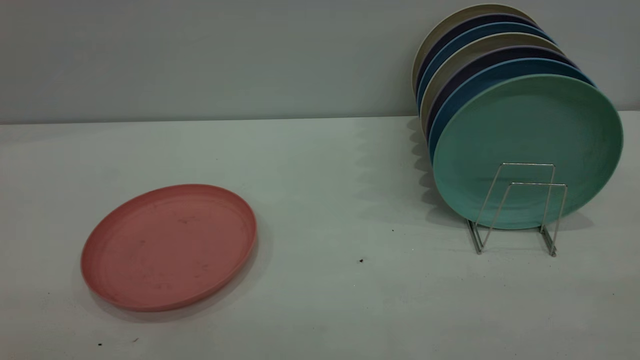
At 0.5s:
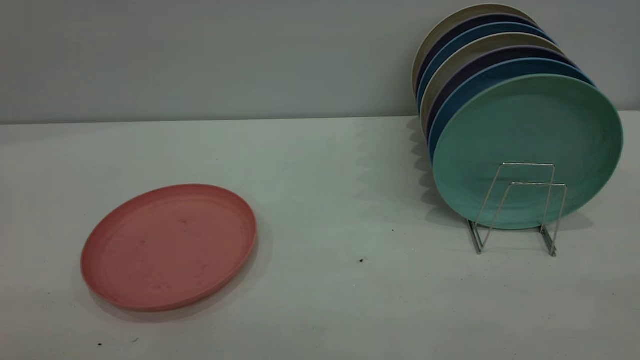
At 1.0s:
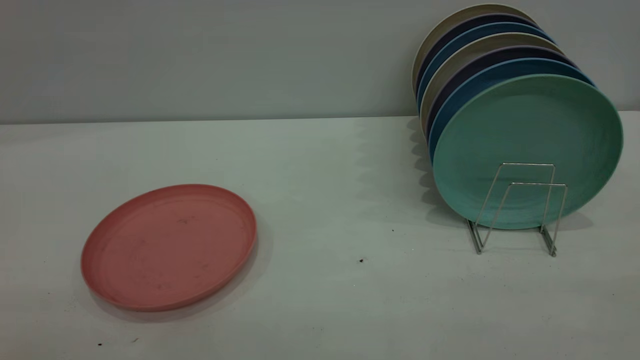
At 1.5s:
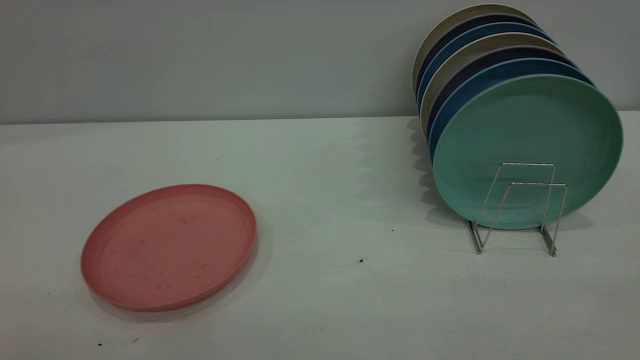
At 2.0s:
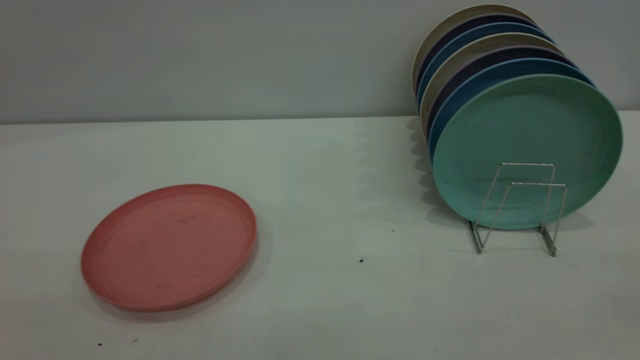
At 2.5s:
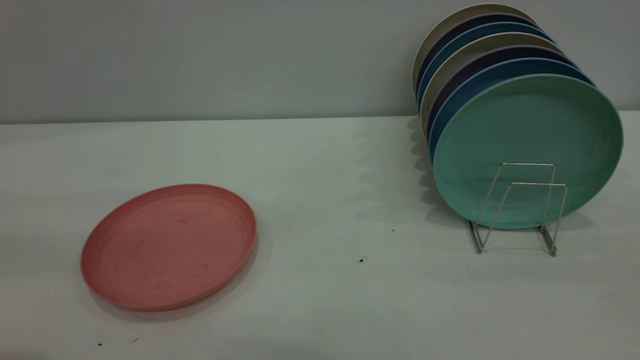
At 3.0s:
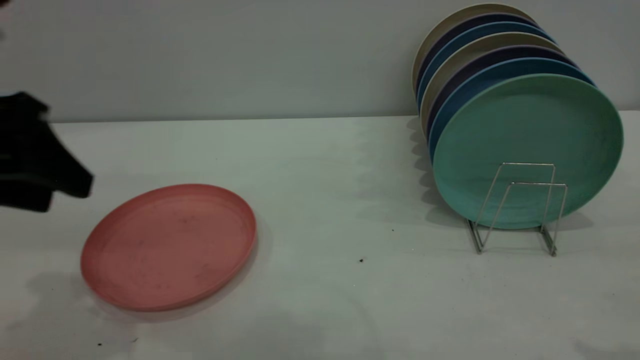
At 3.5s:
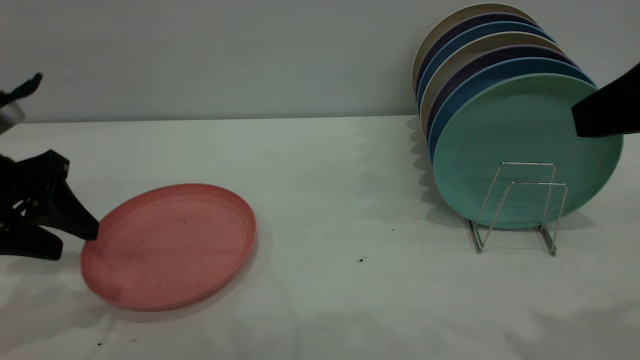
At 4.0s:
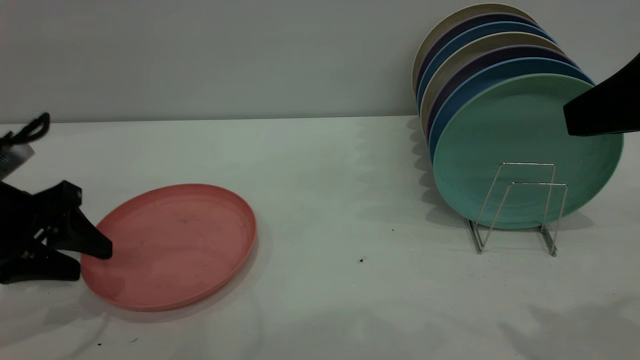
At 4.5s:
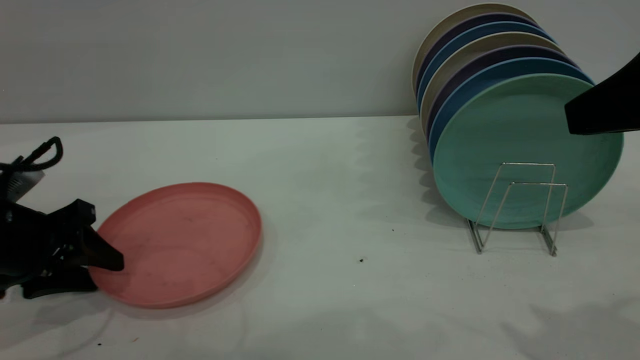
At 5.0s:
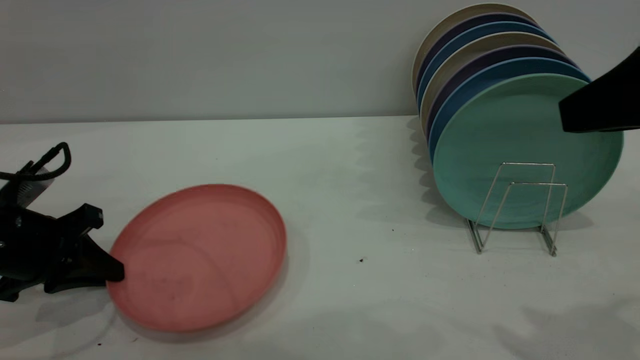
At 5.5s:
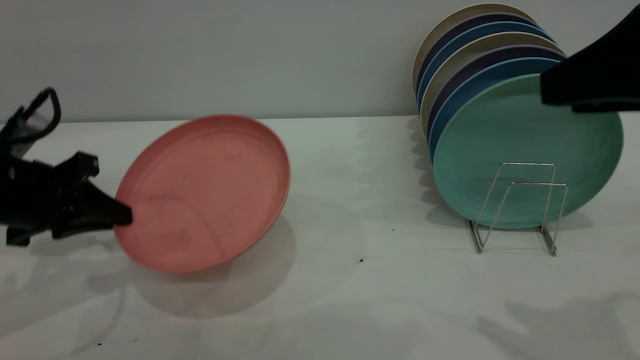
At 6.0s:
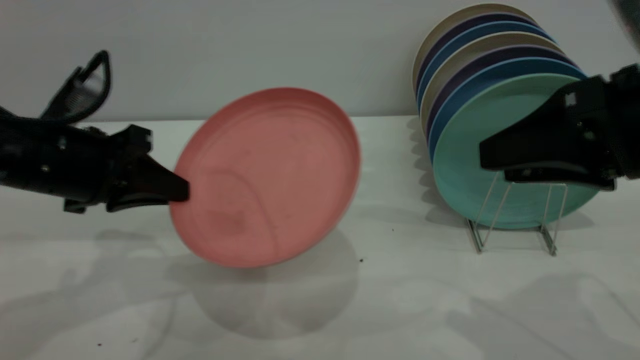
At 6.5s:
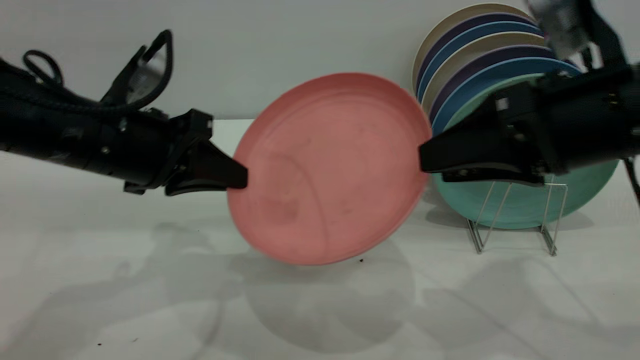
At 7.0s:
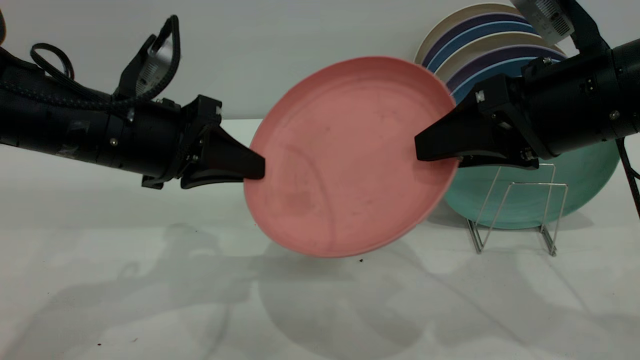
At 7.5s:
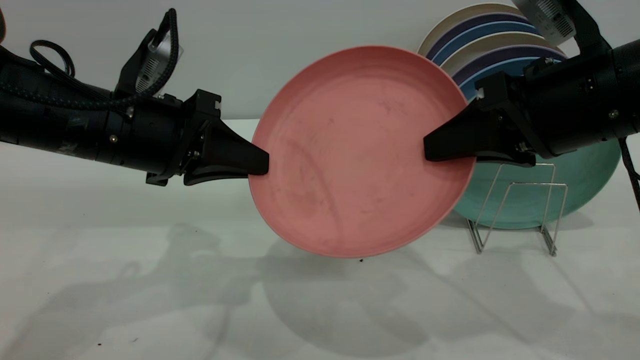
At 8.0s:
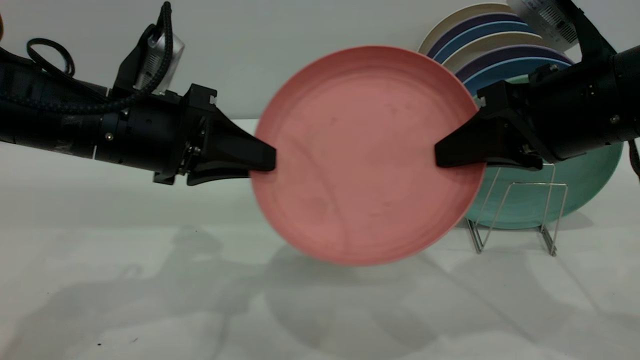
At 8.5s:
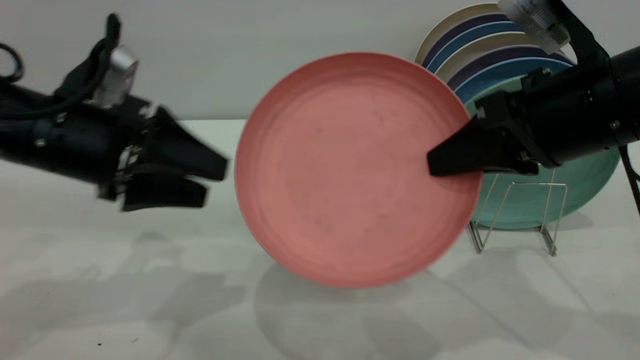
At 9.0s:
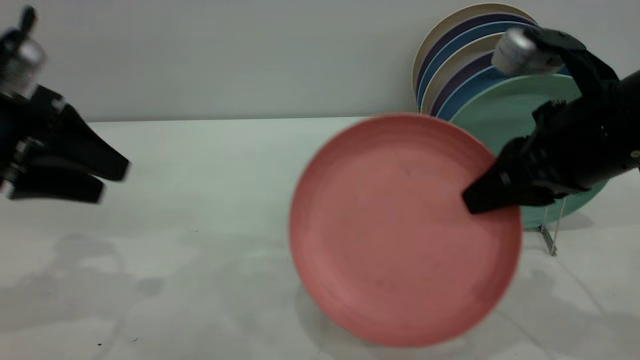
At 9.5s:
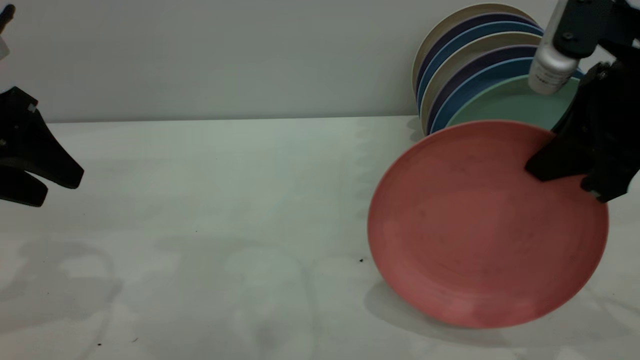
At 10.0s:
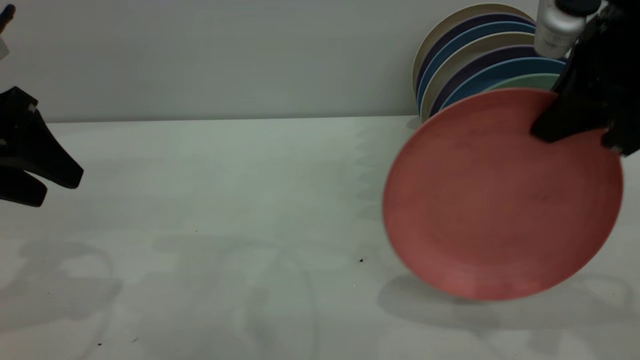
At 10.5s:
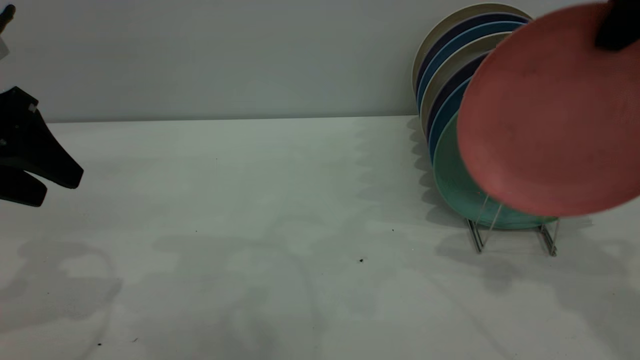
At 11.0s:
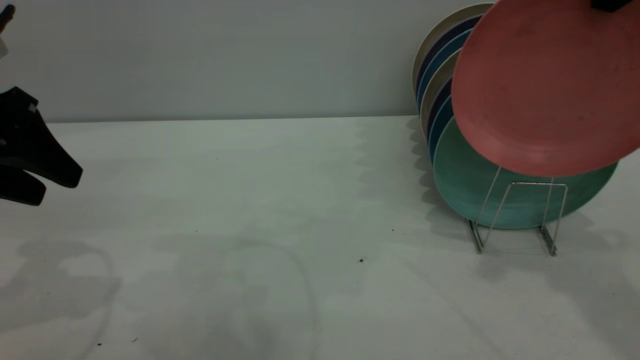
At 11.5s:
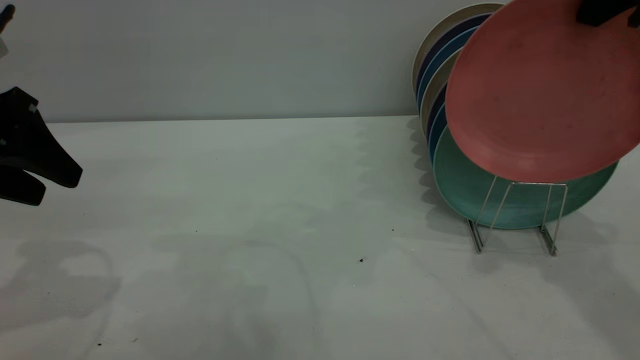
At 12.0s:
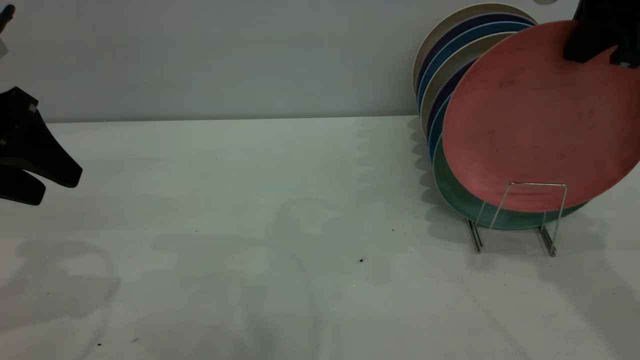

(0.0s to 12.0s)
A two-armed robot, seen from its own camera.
Task of the whole recording: the left gripper grasp the pink plate, the left gripper pass the pink plate to the right gripper, and the right gripper place the pink plate on the plate rack.
Step, 0.0s - 5.0s: Pick up the plate with the left gripper.
Step, 5.5s - 8.5s: Pass the plate from the left gripper to the right gripper.
2.0s - 4.0s: The left gripper shifts approximately 35 cm downward and forward. The right gripper moves forward, some 20 cm.
4.0s - 6.0s: The right gripper travels downward by roughly 5 cm. The left gripper shifts approximately 10 cm to the right, and closes its fingers.
6.0s - 8.0s: The left gripper heads to the right, covering some 5 cm. Meanwhile the right gripper ends up approximately 5 cm from where it was, and closes its fingers.
8.0s - 10.0s: The left gripper goes approximately 15 cm to the left, and opens. Meanwhile the right gripper travels upward by approximately 5 cm.
10.0s - 12.0s: The right gripper is displaced forward by about 5 cm.

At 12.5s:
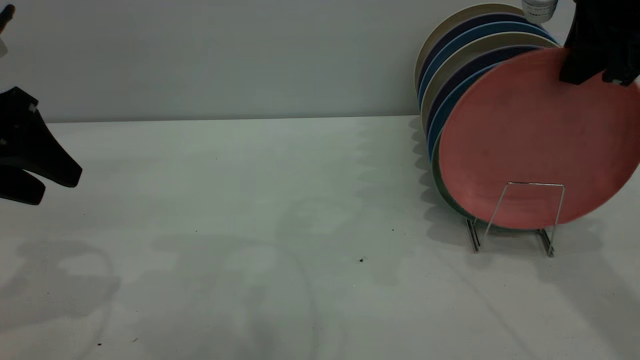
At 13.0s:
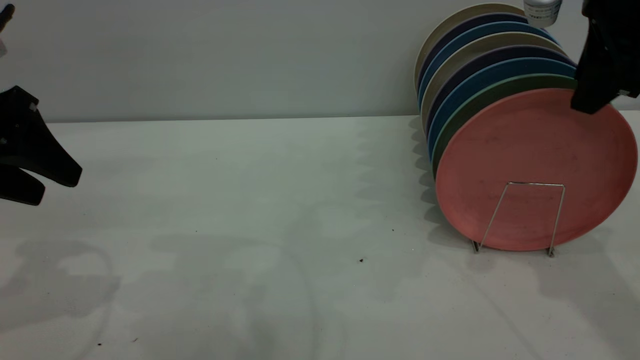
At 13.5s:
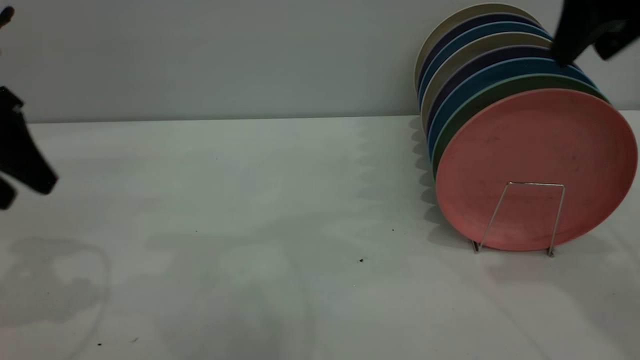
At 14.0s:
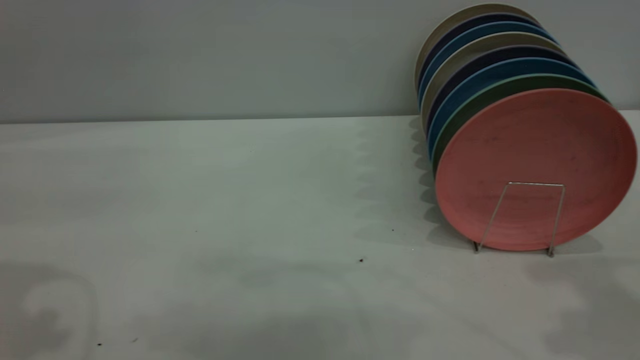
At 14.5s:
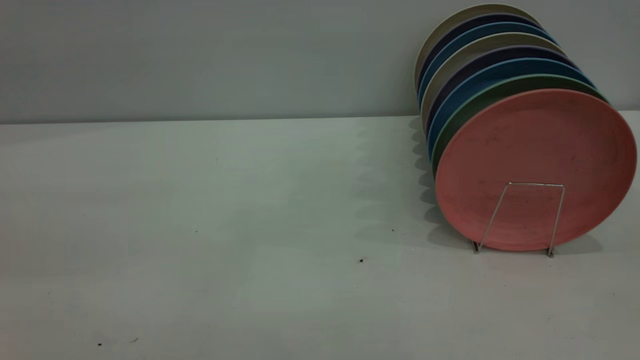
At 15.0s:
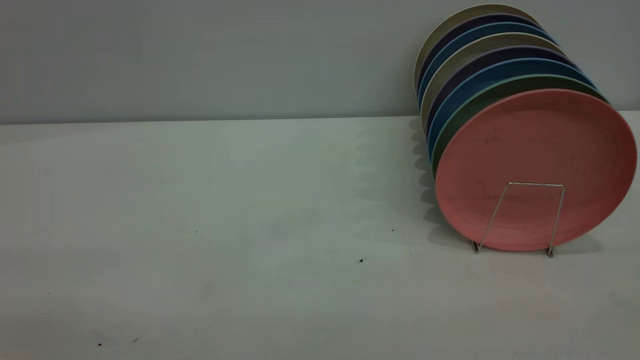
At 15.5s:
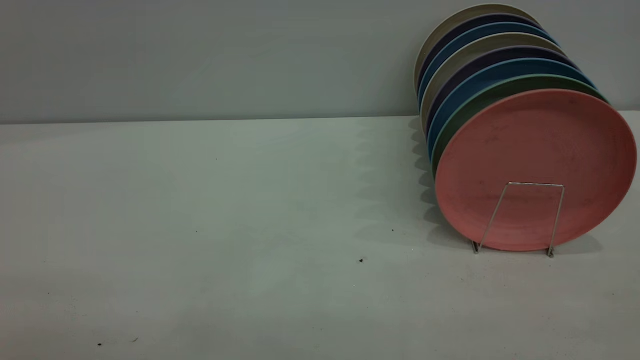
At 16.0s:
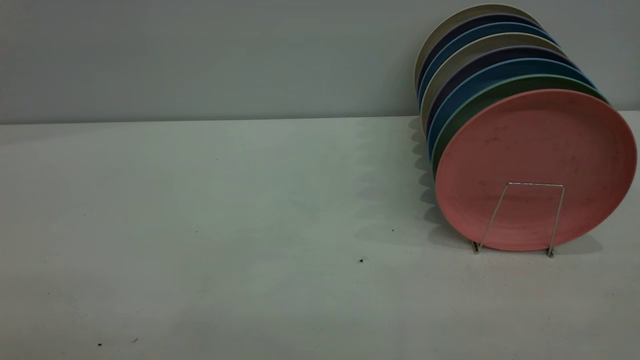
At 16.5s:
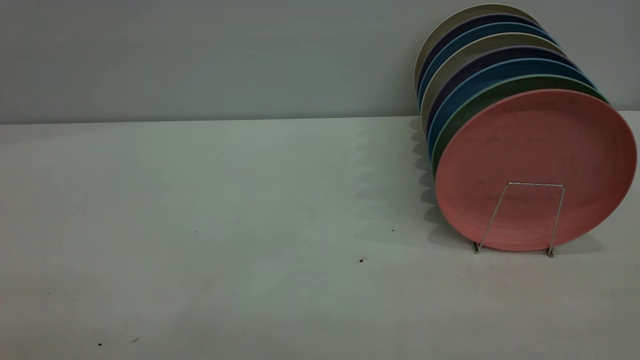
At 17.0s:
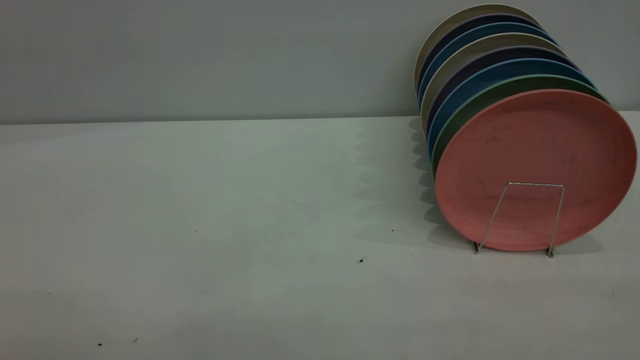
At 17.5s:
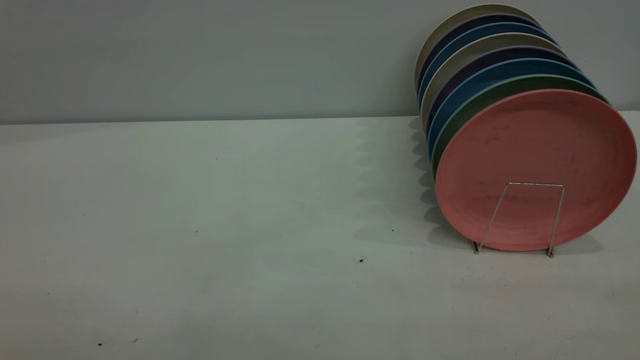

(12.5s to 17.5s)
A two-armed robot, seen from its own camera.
Task of the whole recording: the left gripper grasp the pink plate, the left gripper pass the pink plate to the right gripper, and the right gripper place the pink plate on the plate rack.
12.5s - 15.0s: The right gripper travels backward by approximately 35 cm, and opens. Meanwhile the left gripper shifts approximately 30 cm backward and upward.

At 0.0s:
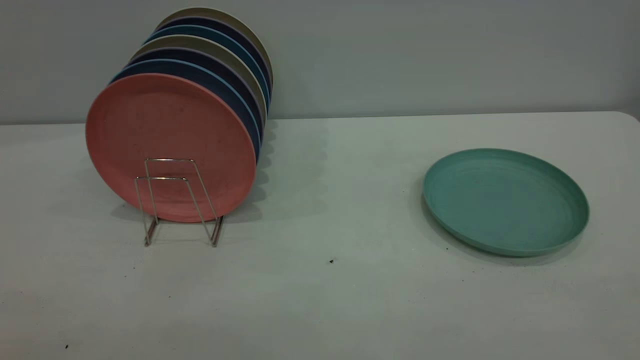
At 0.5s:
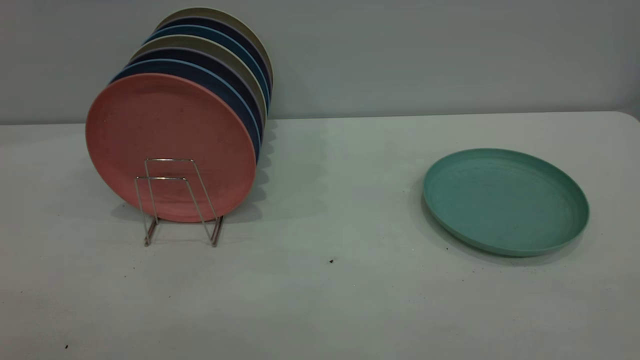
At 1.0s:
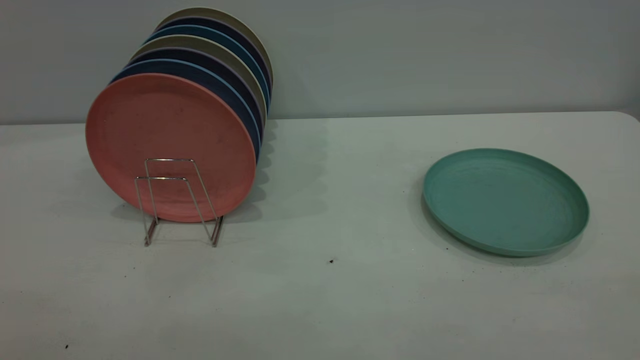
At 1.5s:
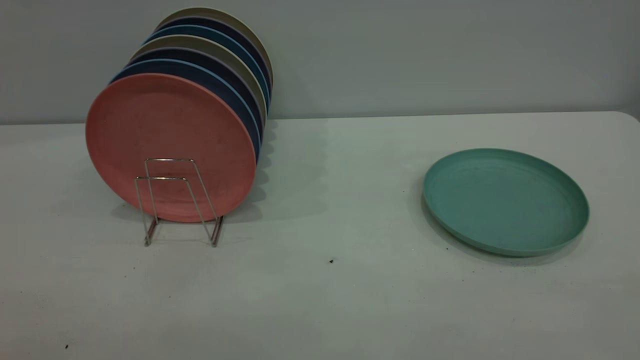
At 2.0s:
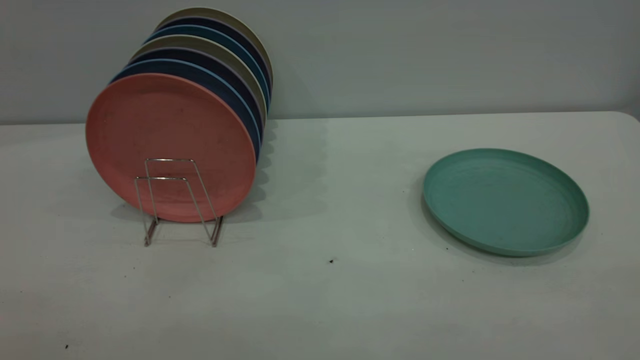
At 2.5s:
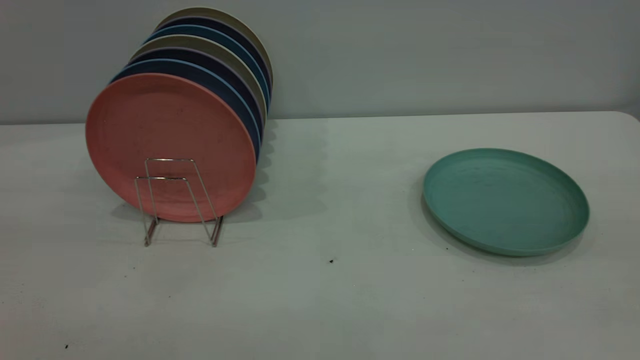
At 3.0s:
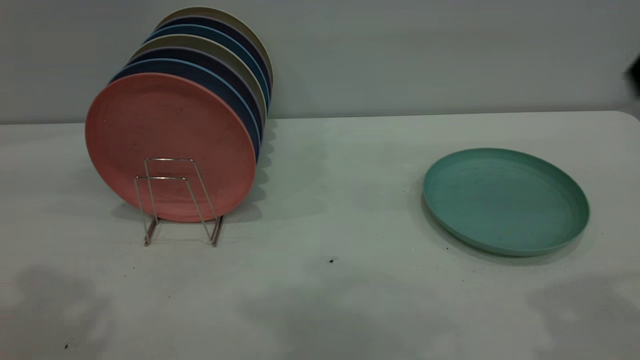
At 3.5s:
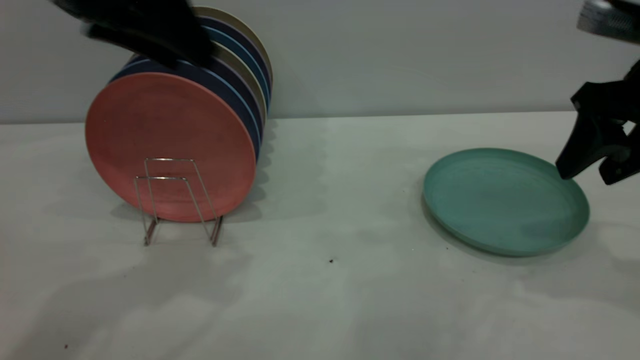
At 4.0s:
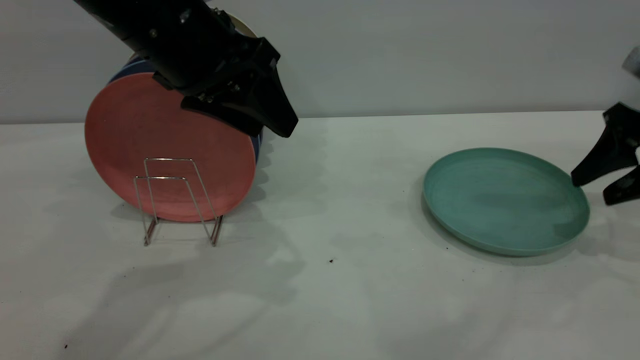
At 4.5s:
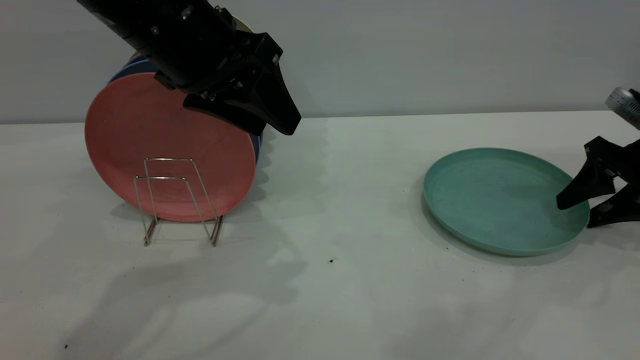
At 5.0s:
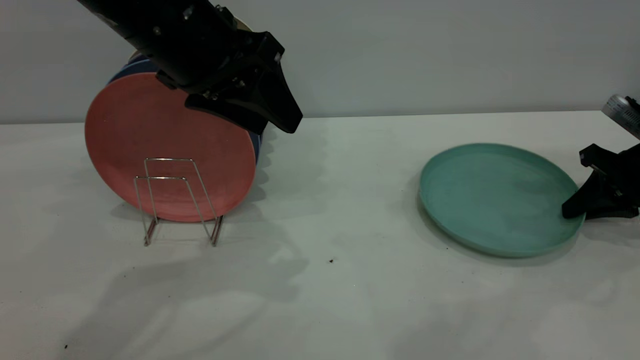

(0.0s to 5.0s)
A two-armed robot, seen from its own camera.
Task of the whole recording: the right gripper grasp the green plate, the right gripper pass the green plate to the left gripper, and the left gripper place the green plate on the plate rack.
2.5s - 5.0s: The left gripper heads forward, downward and to the right, covering approximately 35 cm, while the right gripper travels downward and forward by about 40 cm, and closes its fingers.
